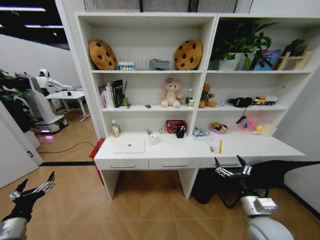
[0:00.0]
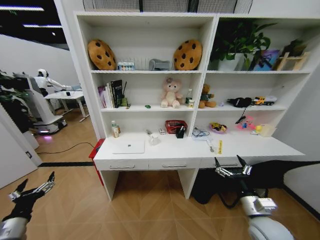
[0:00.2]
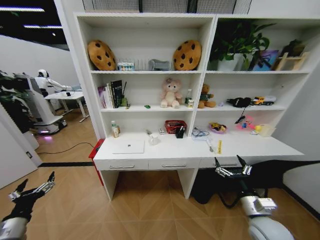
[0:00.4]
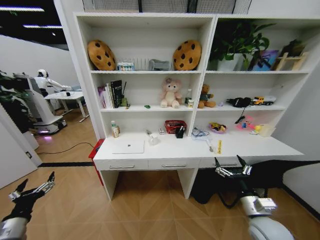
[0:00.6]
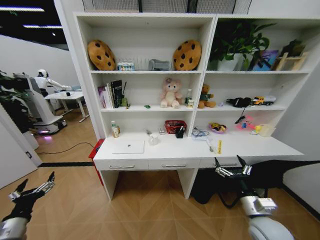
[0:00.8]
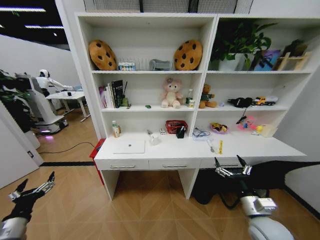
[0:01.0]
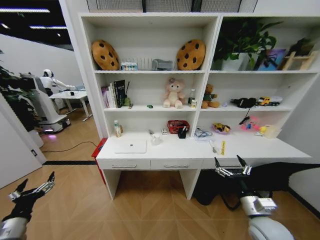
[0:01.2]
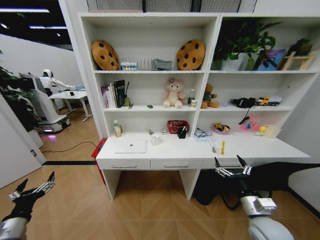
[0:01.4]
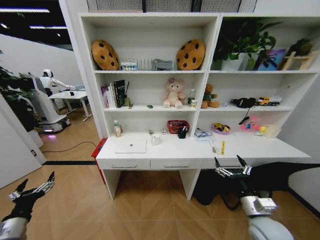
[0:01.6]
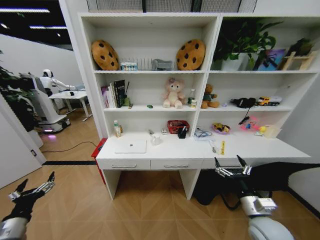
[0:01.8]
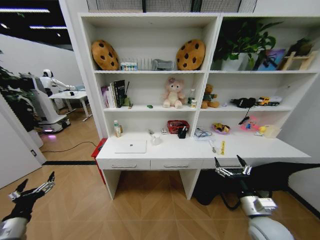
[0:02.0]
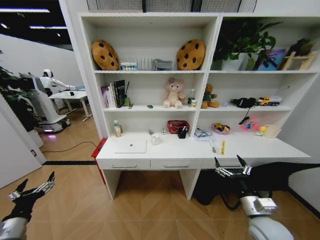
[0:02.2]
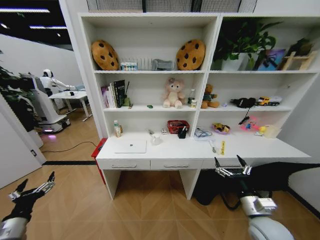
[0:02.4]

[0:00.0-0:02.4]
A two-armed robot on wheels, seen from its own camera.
Task of the whole recording: Organize the objects on the table.
0:00.0 to 0:02.4: The two grippers keep their place.

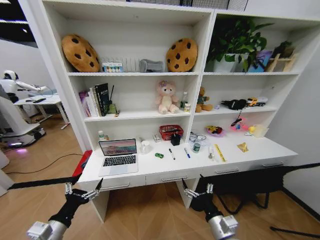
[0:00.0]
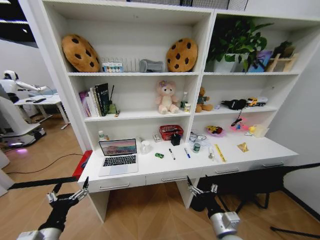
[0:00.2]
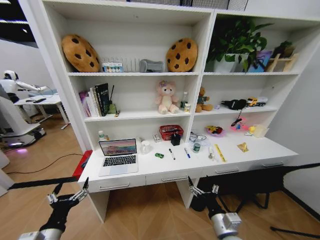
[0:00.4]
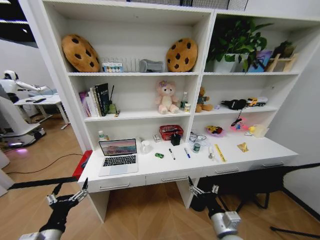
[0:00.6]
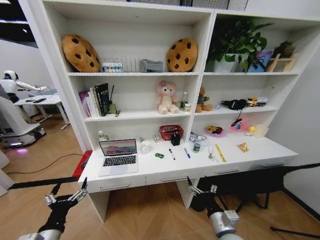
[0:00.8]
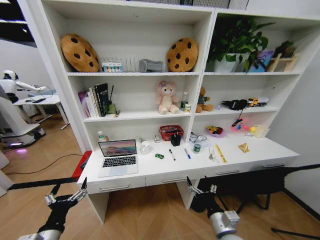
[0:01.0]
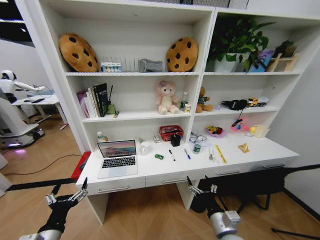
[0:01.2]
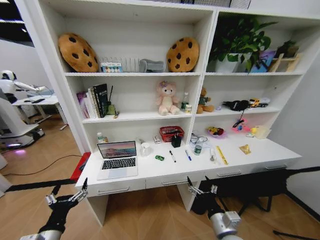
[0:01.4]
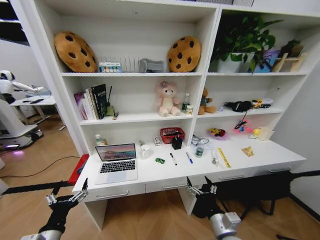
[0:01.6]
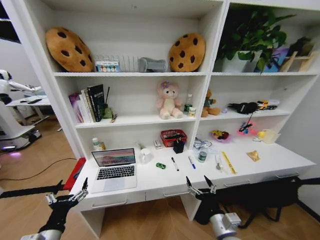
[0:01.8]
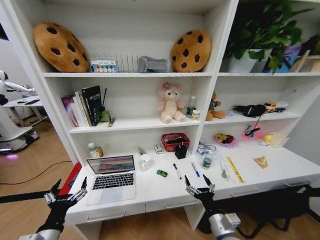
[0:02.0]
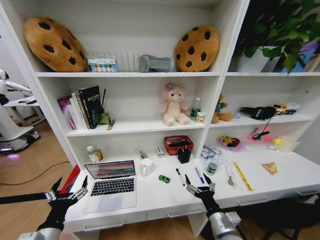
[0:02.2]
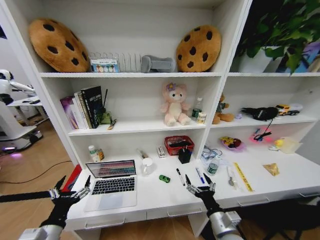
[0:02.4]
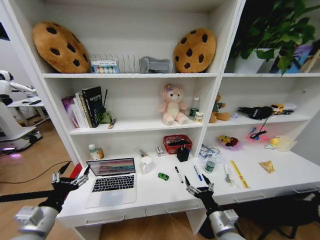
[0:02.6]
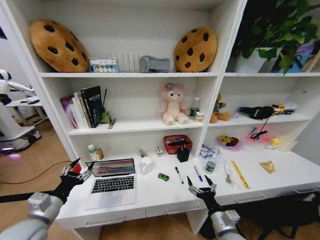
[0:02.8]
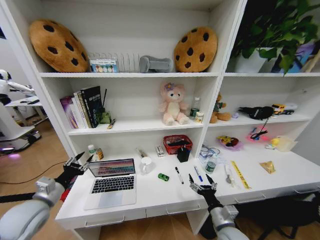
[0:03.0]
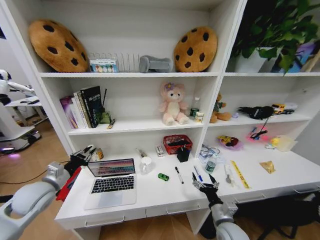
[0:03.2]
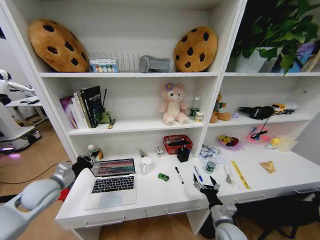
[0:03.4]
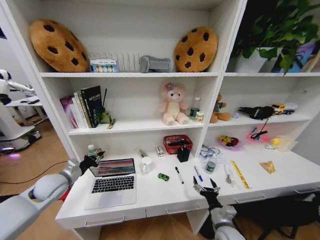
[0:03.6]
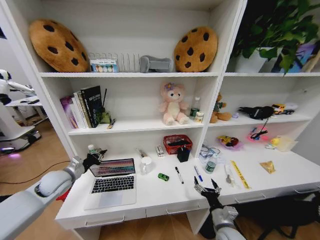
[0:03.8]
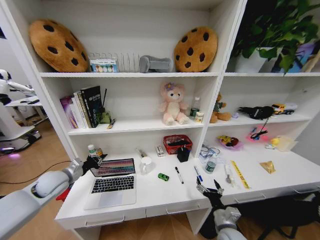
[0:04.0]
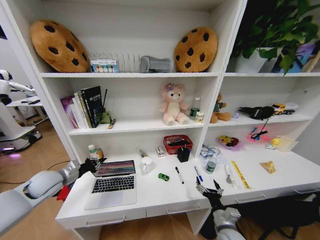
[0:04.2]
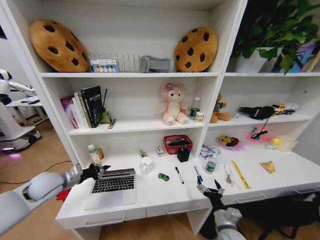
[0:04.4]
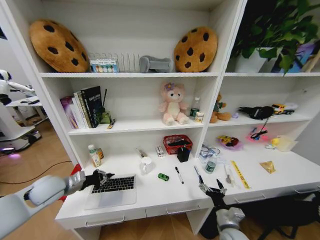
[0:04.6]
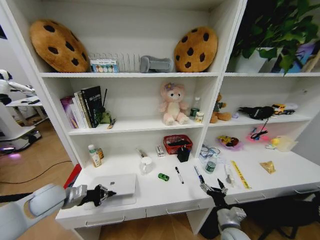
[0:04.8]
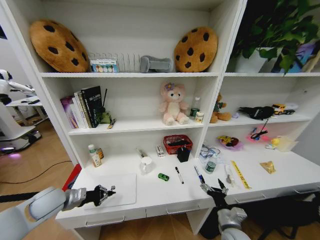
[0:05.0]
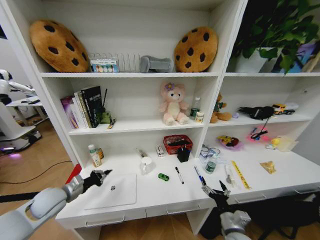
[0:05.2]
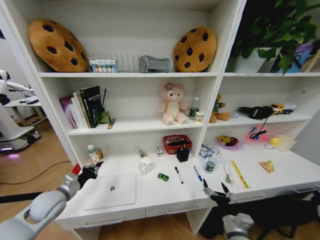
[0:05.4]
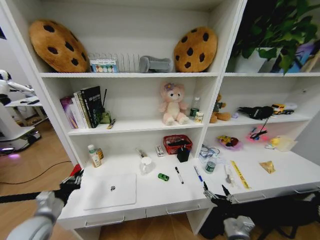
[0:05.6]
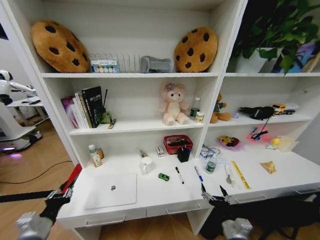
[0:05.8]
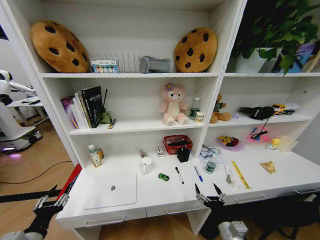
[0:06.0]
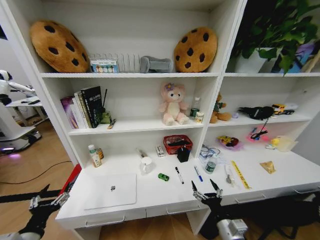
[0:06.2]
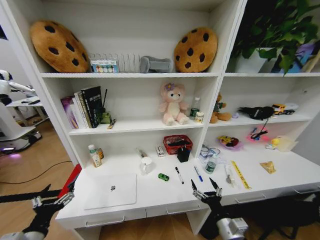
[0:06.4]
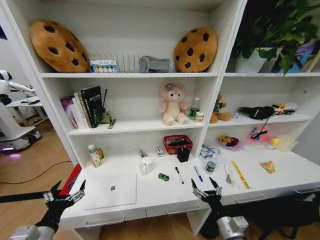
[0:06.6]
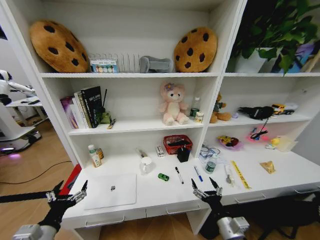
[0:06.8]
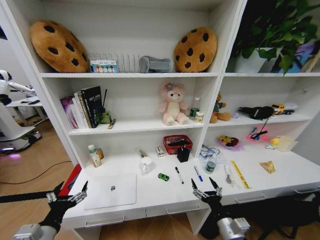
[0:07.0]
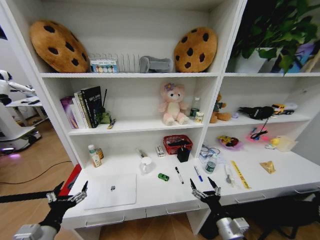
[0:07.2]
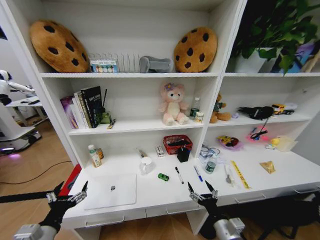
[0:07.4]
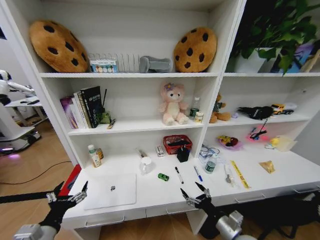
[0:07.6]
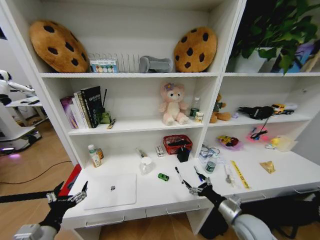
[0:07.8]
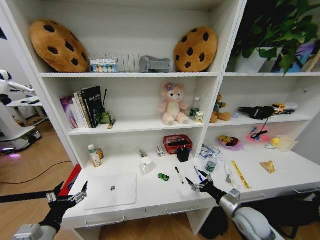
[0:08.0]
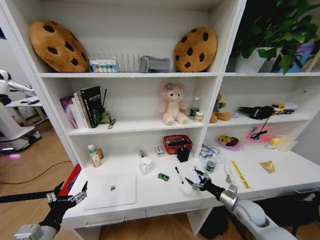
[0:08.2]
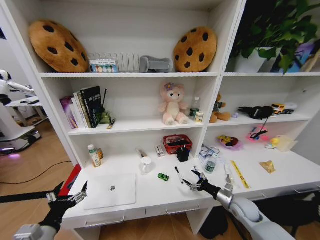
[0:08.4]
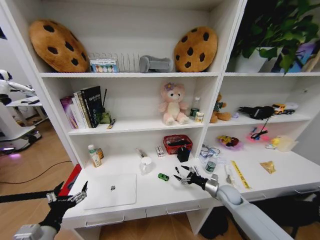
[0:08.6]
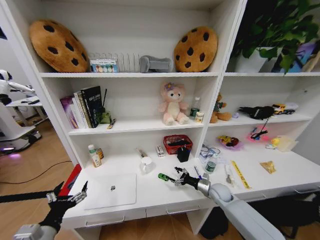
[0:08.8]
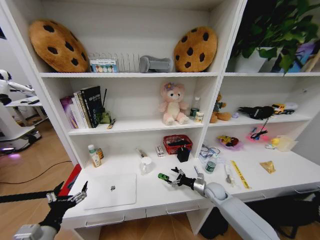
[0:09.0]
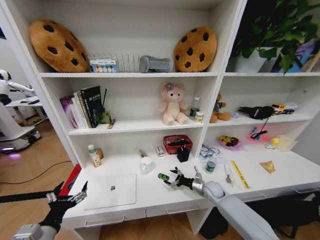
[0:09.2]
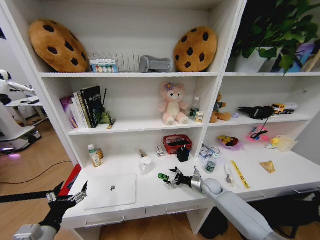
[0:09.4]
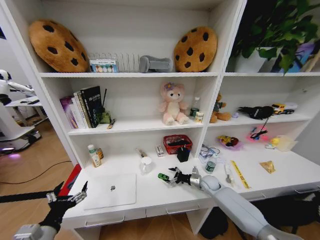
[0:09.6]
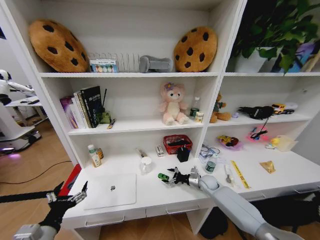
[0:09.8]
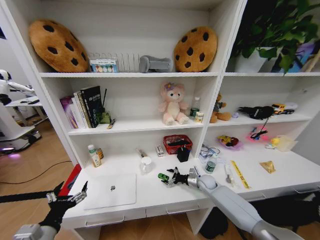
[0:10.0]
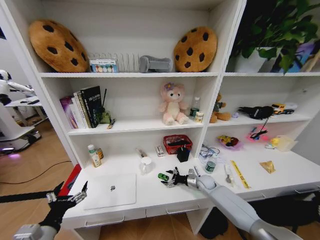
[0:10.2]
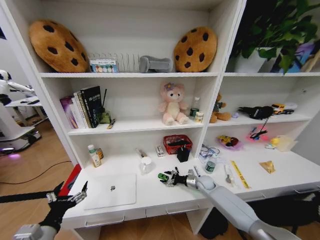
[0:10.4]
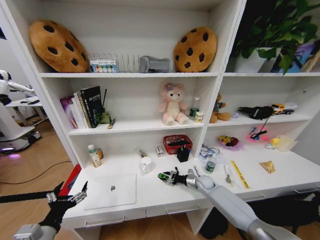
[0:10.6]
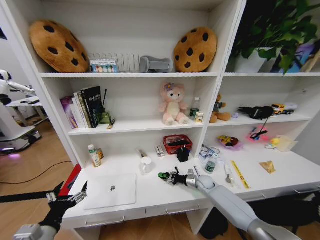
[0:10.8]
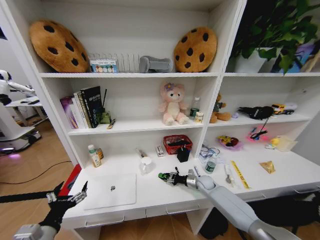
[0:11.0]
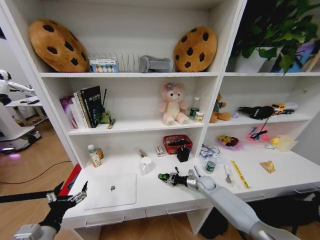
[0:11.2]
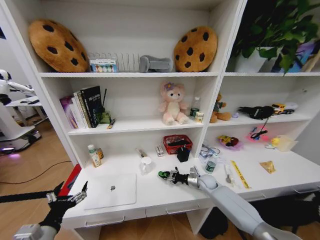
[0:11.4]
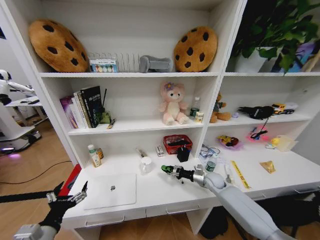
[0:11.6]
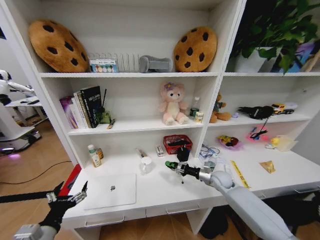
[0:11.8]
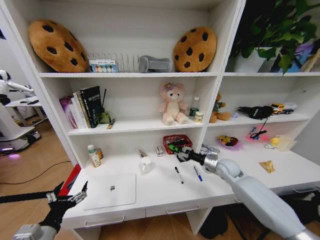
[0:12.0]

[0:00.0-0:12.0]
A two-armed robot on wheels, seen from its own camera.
Task of the whole recording: Organize the objects on the table.
0:01.6 to 0:03.0: The left gripper shifts some 15 cm forward, to the left and upward, and closes.
0:03.0 to 0:04.4: The left gripper goes about 10 cm forward, and closes.
0:04.4 to 0:06.0: The left gripper heads backward, covering roughly 25 cm, and opens its fingers.
0:06.0 to 0:07.6: The left gripper opens its fingers.
0:07.6 to 0:09.0: The right gripper shifts approximately 20 cm forward.
0:09.0 to 0:10.4: The right gripper shifts roughly 5 cm forward.
0:10.4 to 0:12.0: The right gripper goes approximately 15 cm upward, and closes its fingers.

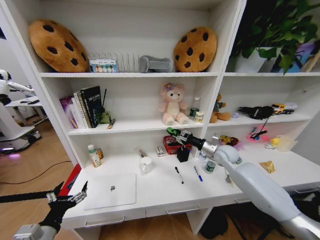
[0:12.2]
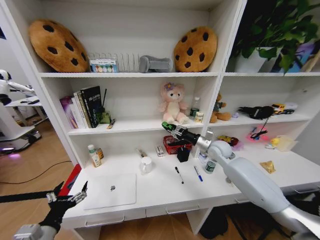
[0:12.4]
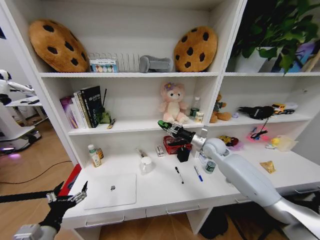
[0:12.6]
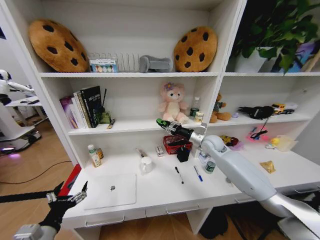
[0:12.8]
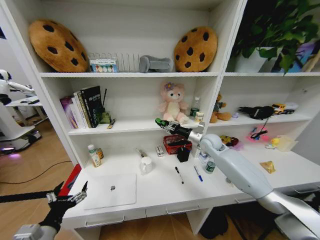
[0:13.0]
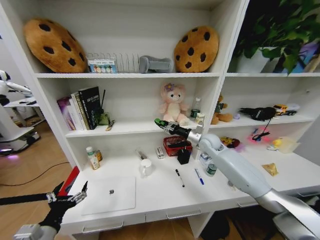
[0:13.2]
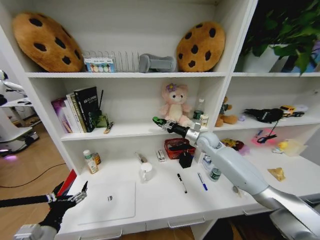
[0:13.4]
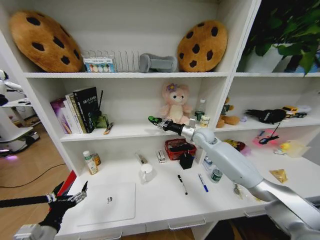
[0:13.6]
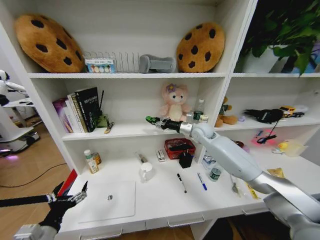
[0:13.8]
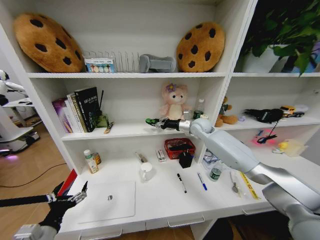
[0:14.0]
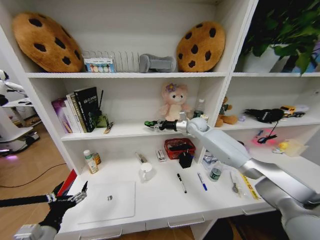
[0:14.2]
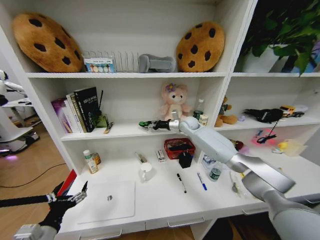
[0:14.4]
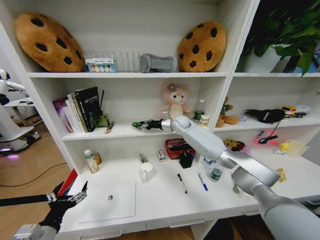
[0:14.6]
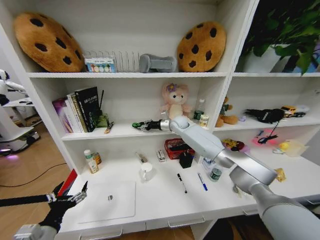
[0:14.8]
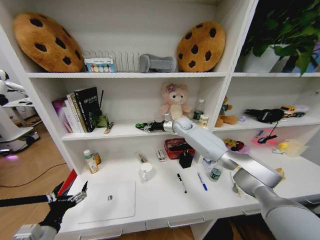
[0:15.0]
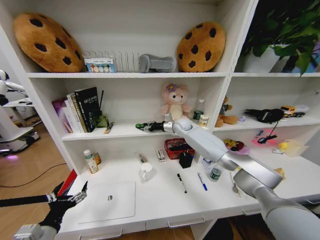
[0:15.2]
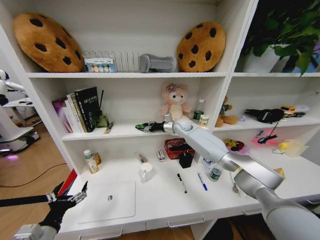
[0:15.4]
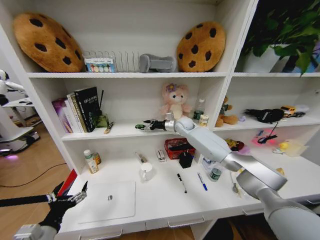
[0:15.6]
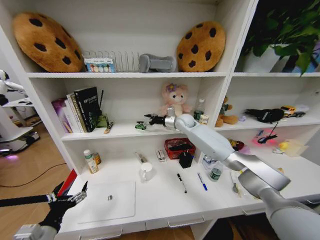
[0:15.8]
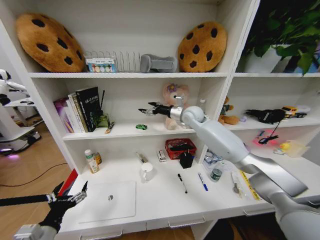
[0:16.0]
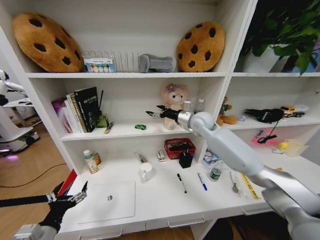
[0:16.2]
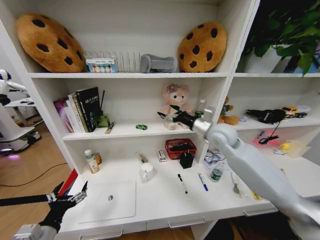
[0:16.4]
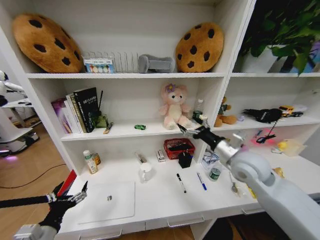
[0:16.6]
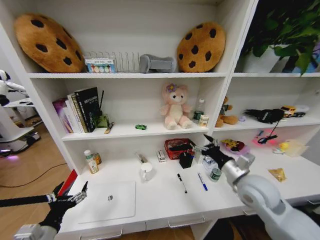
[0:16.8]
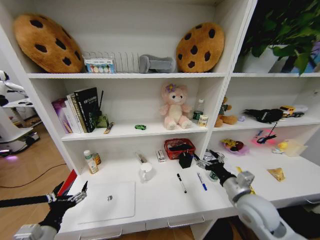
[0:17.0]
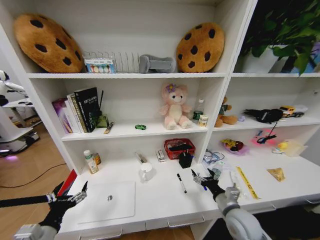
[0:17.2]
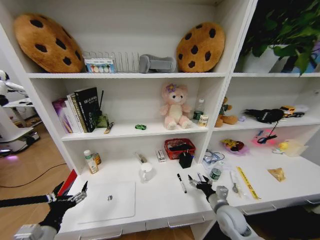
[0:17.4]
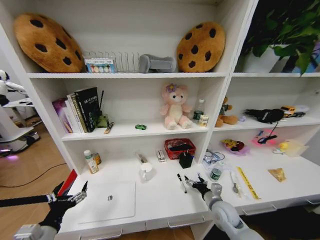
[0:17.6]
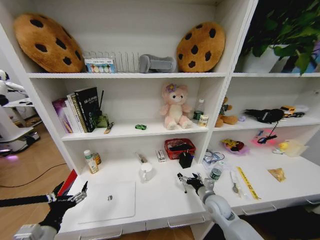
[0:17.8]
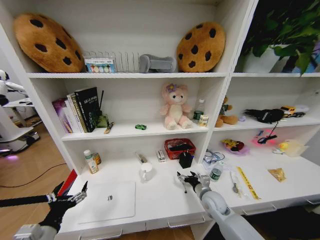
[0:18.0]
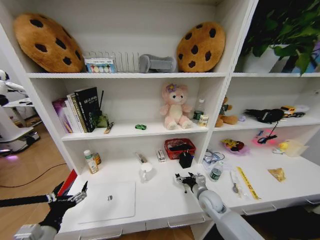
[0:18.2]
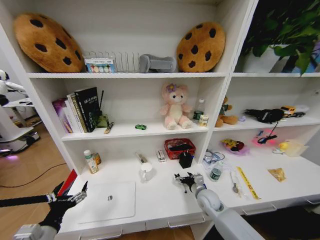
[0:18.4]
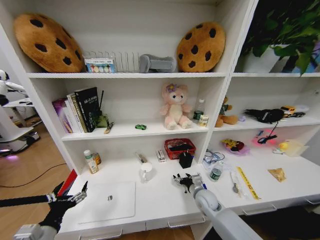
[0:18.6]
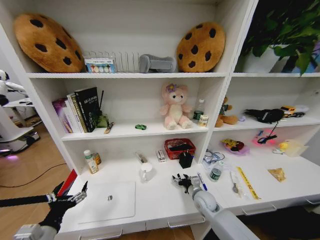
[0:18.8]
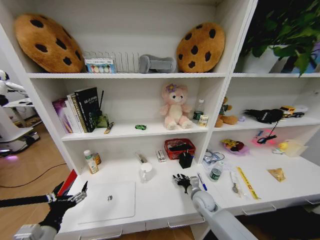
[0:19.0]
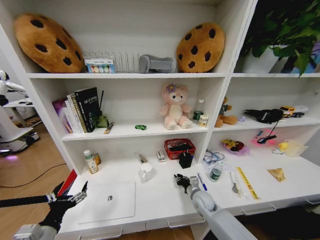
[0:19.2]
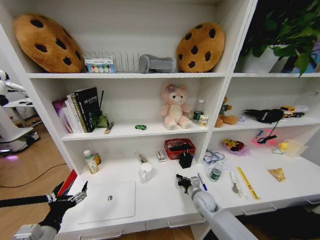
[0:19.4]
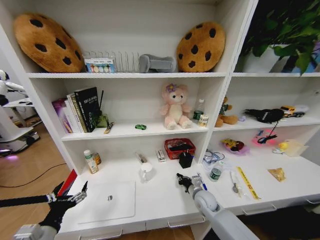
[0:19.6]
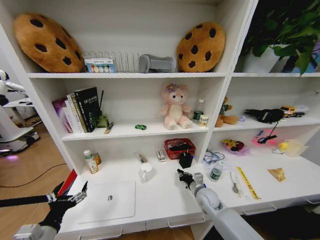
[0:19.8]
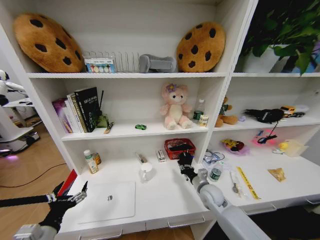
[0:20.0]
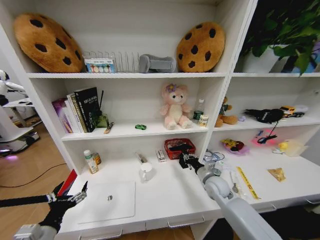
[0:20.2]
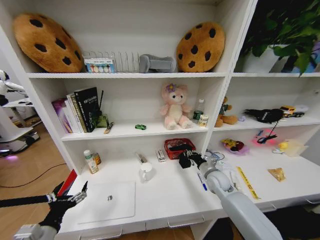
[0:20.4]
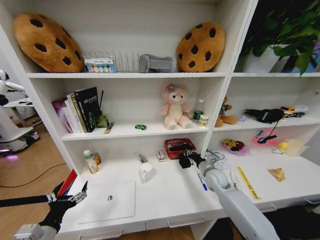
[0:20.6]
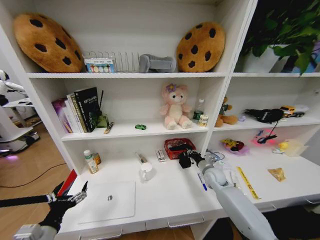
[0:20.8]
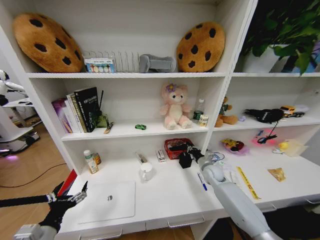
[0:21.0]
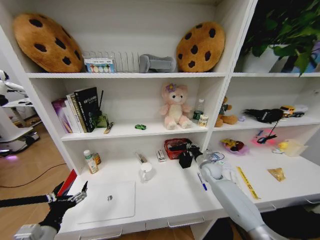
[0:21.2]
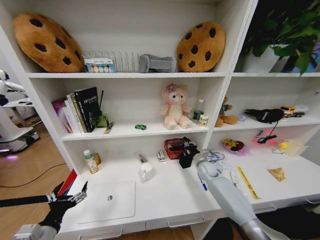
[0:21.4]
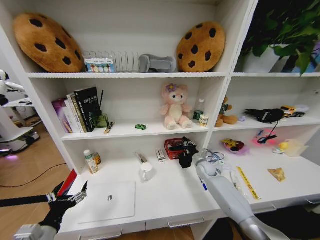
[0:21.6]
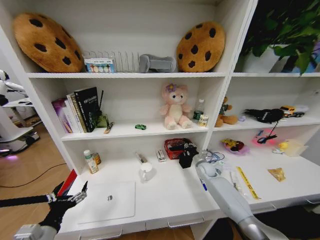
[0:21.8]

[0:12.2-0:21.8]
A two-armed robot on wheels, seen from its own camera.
Task of the whole recording: Organize the objects on the table.
0:12.2 to 0:13.8: The right gripper shifts some 15 cm to the left, upward and forward.
0:13.8 to 0:15.4: The right gripper travels forward and to the left by some 10 cm.
0:15.4 to 0:17.0: The right gripper goes about 40 cm backward, and opens its fingers.
0:17.0 to 0:18.6: The right gripper heads downward, forward and to the left, covering some 20 cm.
0:18.6 to 0:20.2: The right gripper goes approximately 5 cm upward, and closes its fingers.
0:20.2 to 0:21.8: The right gripper goes roughly 15 cm forward and downward.
